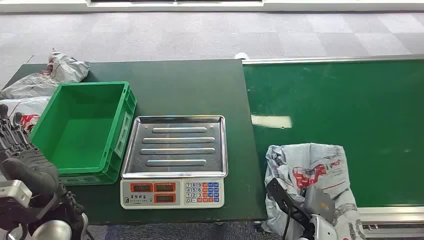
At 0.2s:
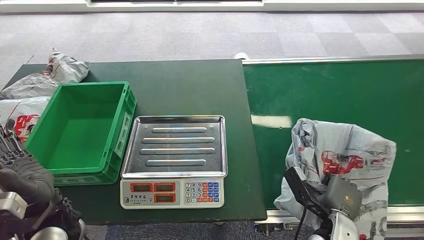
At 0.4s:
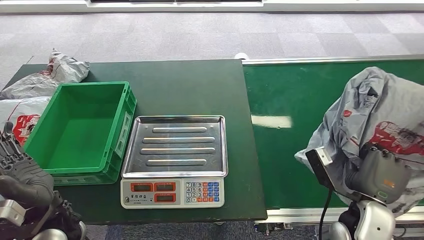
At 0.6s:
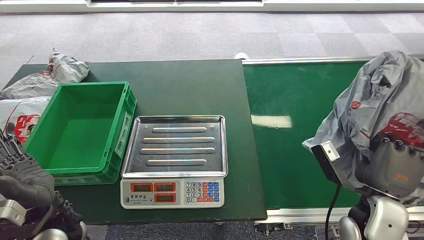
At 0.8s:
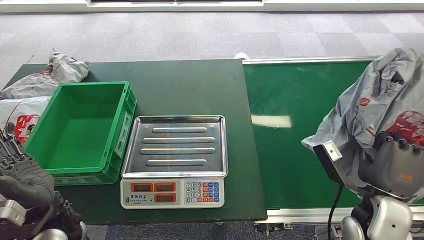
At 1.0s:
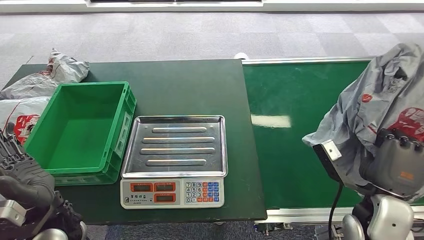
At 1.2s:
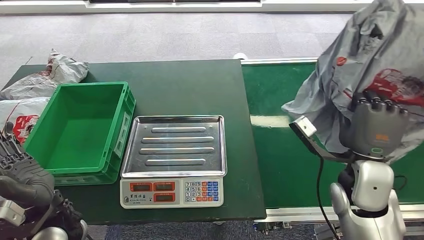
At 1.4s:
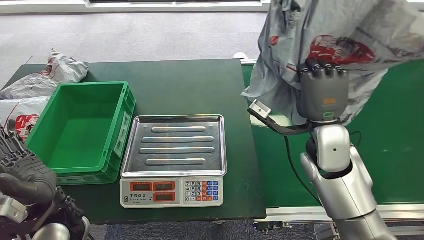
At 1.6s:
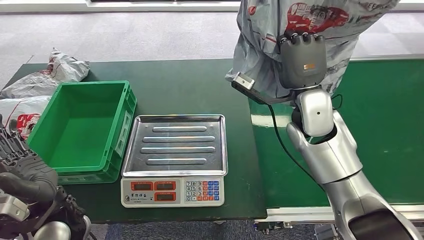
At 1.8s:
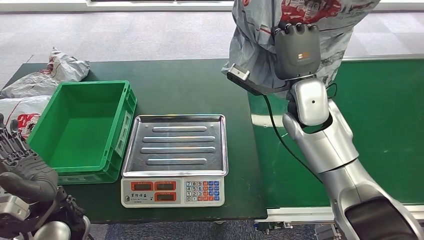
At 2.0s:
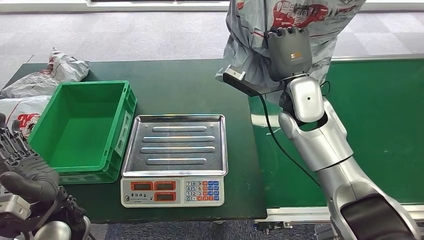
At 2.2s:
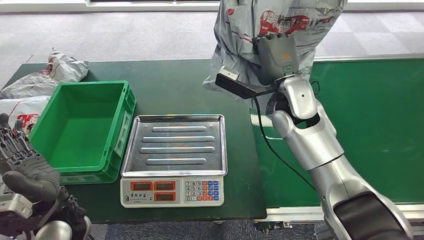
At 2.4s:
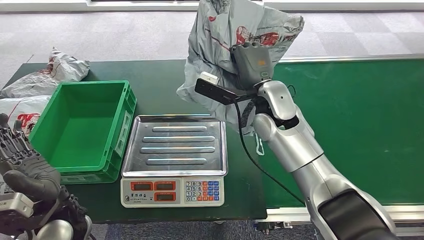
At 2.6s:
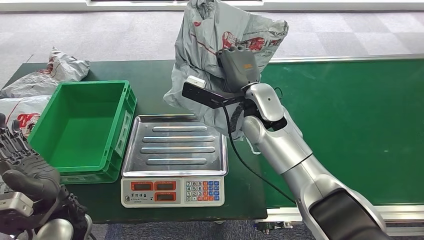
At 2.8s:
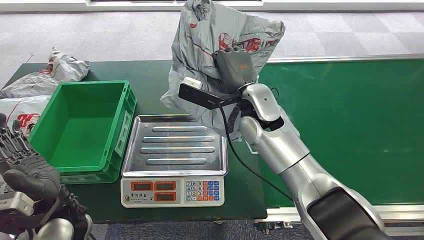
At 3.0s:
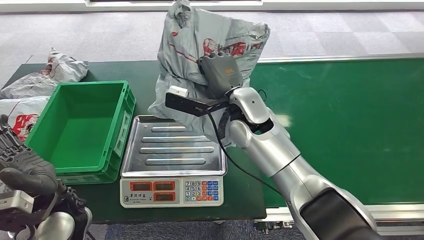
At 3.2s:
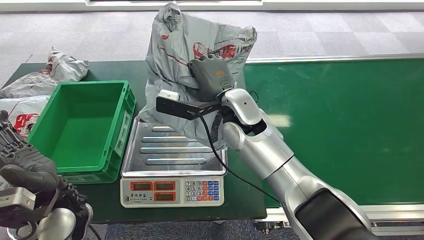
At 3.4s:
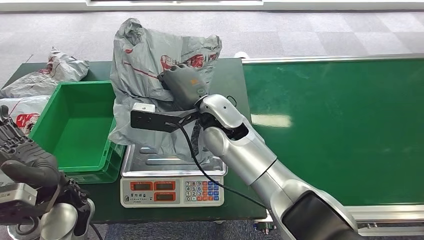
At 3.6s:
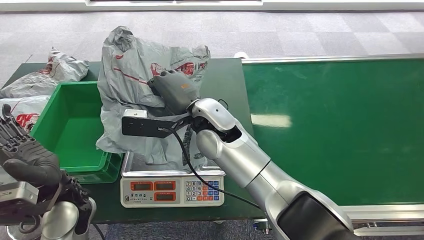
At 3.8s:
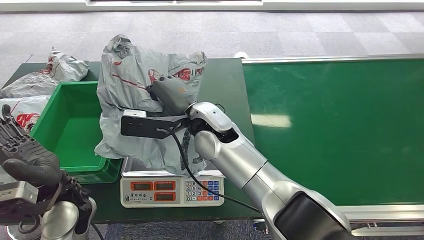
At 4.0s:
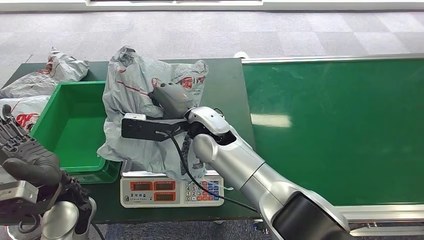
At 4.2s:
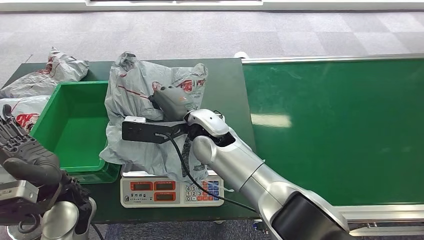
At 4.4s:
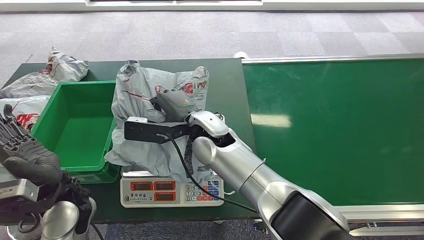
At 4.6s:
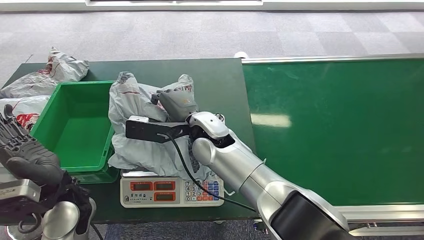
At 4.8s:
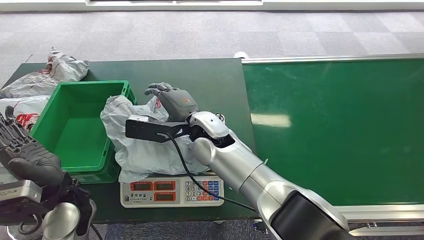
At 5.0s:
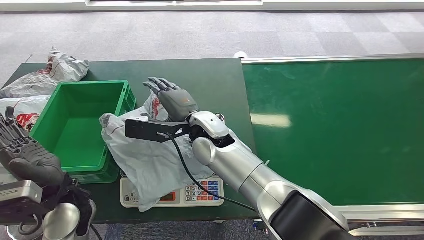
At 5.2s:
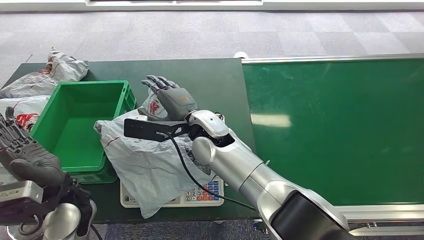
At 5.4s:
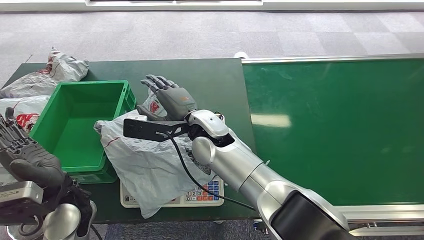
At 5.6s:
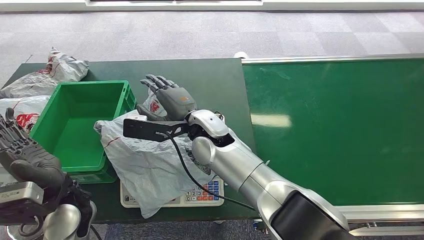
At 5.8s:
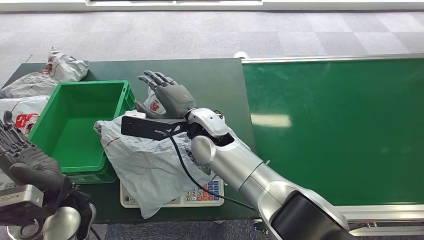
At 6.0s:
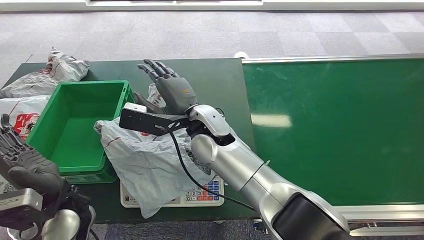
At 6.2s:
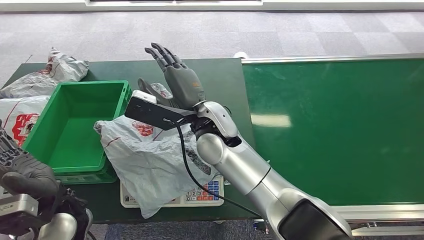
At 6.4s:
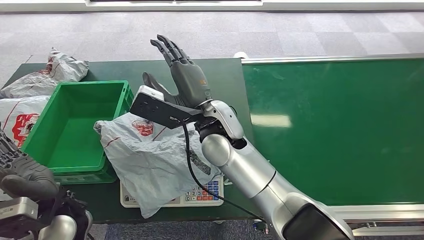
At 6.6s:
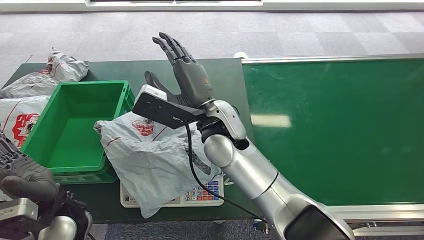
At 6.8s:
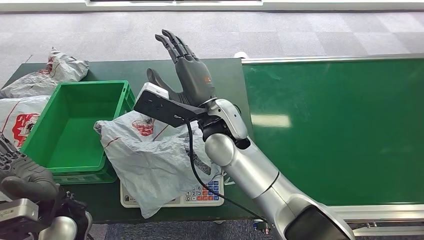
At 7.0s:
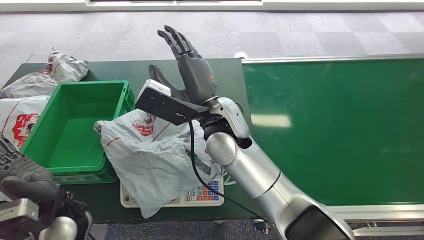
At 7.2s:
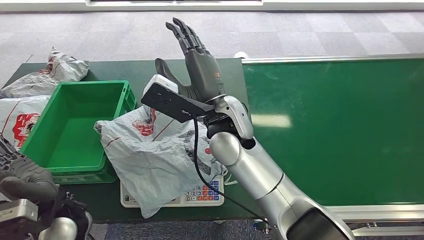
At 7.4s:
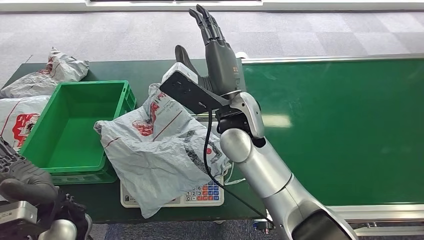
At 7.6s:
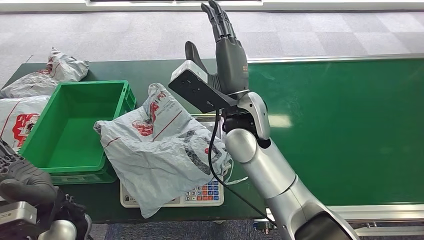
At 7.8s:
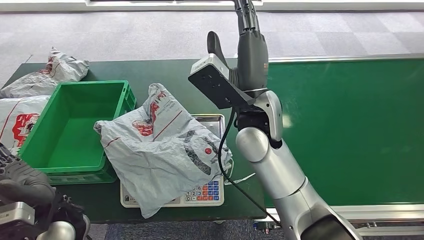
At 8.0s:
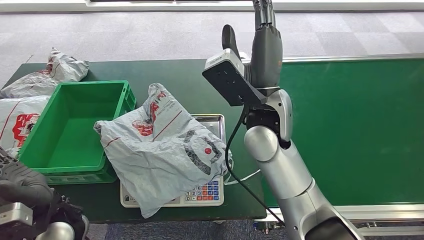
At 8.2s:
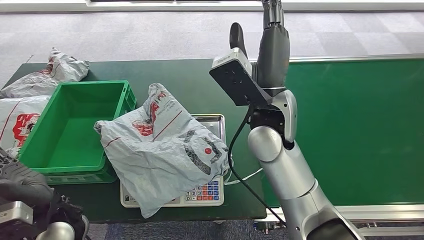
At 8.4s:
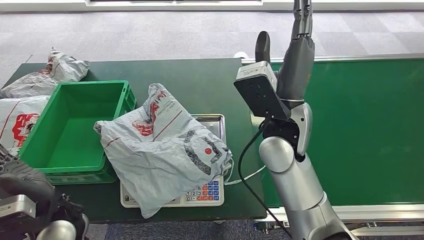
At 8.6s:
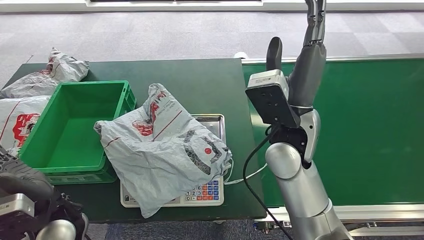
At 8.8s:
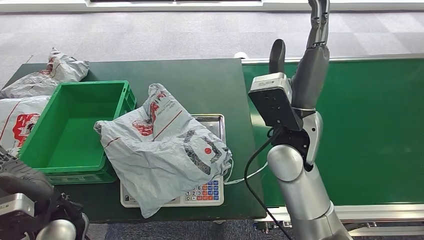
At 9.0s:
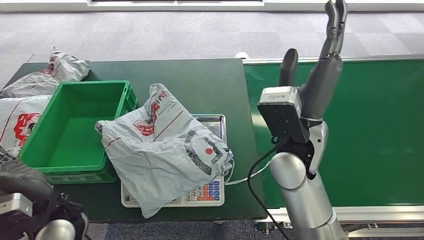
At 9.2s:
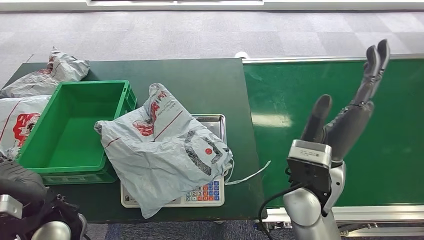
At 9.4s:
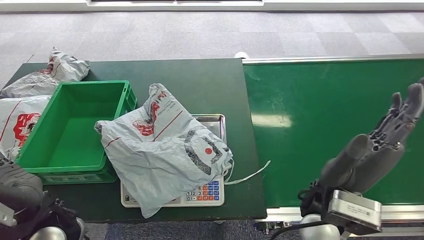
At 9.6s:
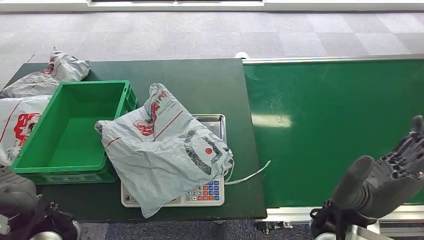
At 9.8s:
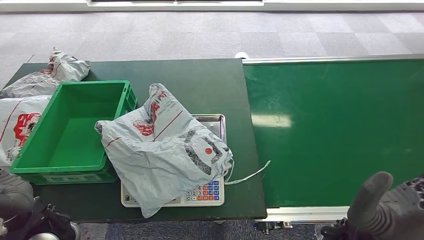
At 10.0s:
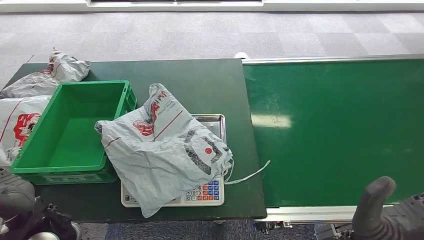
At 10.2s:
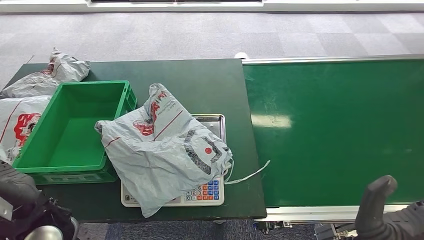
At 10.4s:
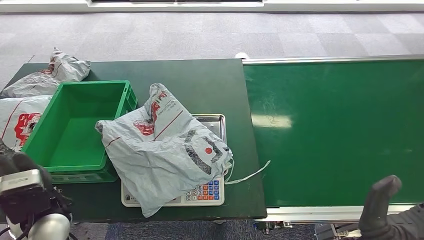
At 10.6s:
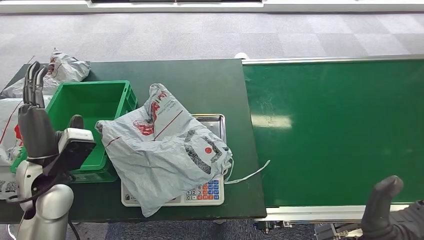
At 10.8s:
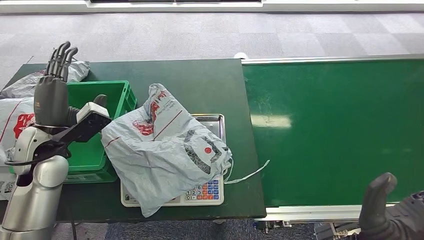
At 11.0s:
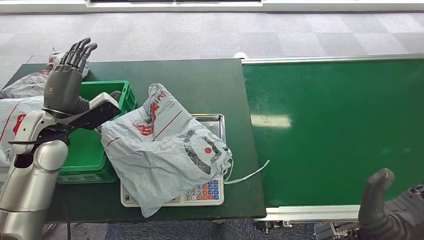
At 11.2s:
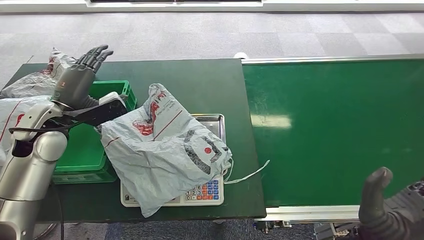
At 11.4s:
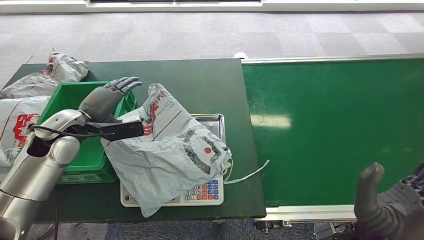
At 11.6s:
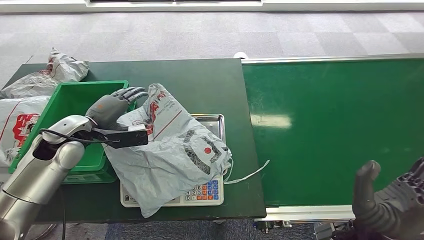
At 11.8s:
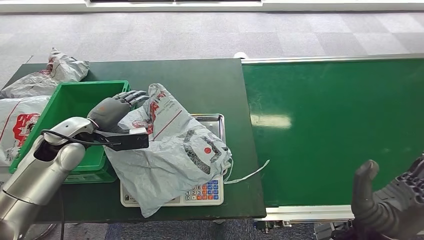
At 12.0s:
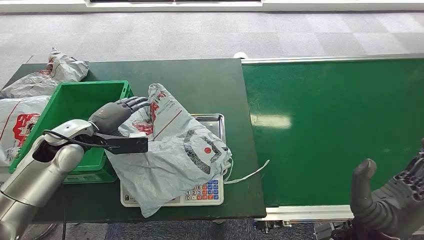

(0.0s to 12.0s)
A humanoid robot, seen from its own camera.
Task of the whole recording: Weigh the package on the weighing device and place it in the left basket.
Step, 0.0s - 0.8s: Pick up the package from the conveyor belt.
Step, 1.0s - 6.0s: Place the package onto the inbound machine.
4.4s - 6.0s: The hands move only a little.
9.0s - 10.4s: The right hand goes roughly 20 cm backward, downward and to the right.
10.4s - 12.0s: The left hand heads forward, covering some 15 cm.

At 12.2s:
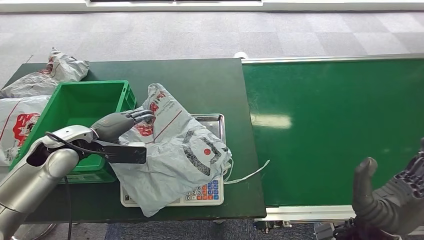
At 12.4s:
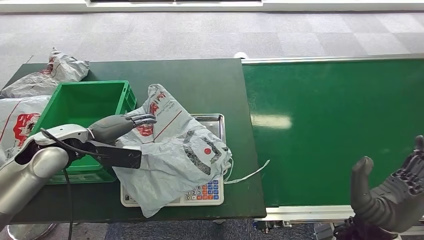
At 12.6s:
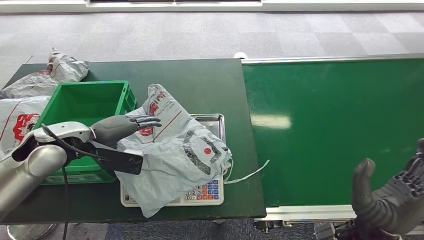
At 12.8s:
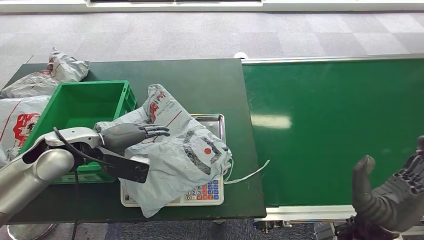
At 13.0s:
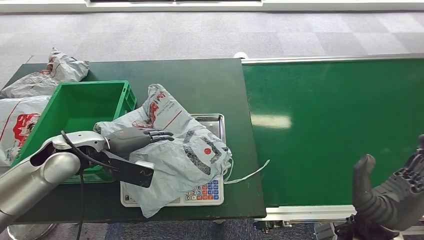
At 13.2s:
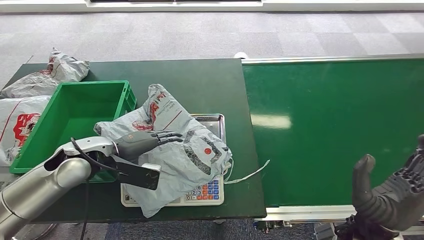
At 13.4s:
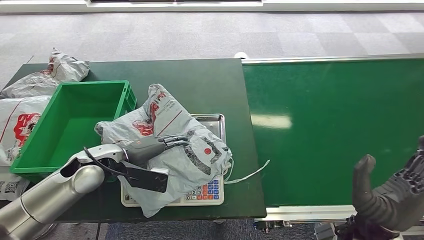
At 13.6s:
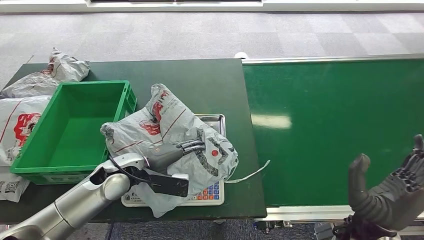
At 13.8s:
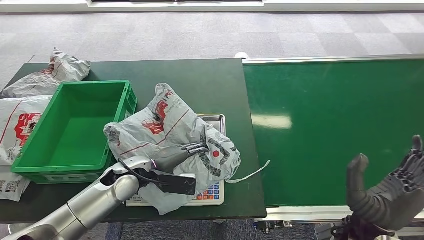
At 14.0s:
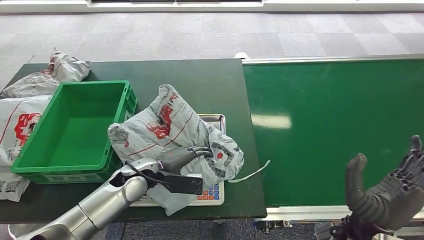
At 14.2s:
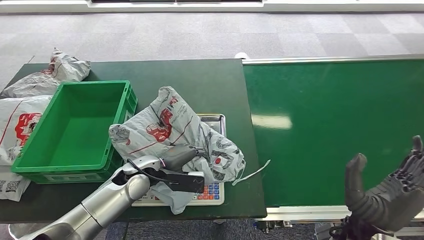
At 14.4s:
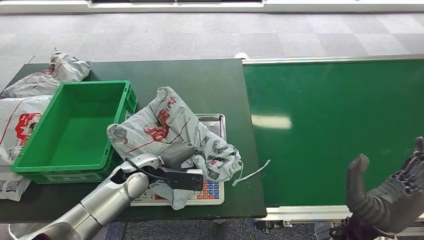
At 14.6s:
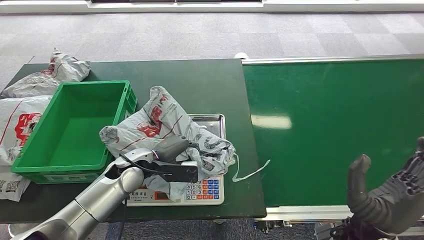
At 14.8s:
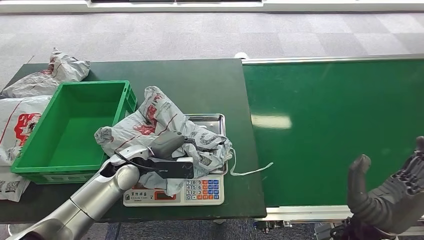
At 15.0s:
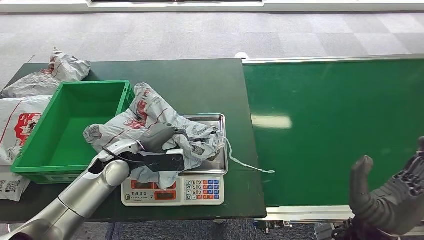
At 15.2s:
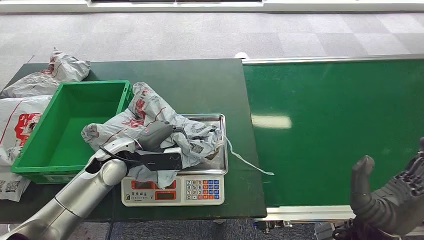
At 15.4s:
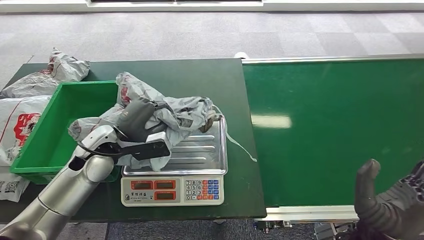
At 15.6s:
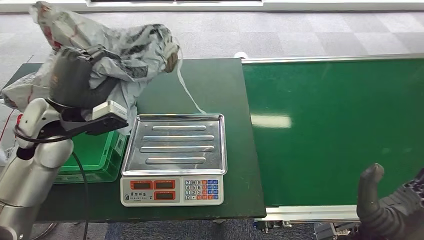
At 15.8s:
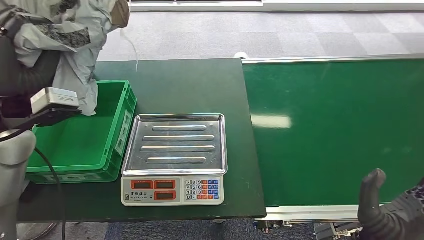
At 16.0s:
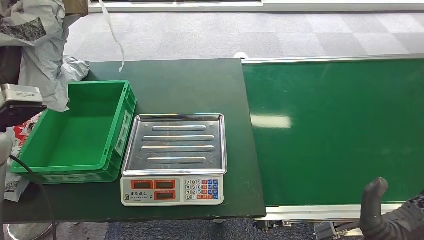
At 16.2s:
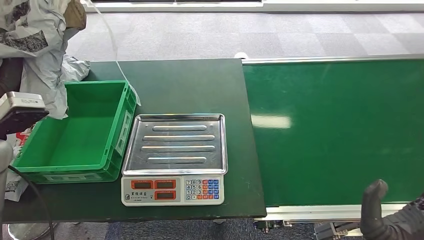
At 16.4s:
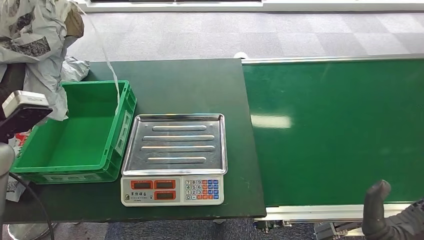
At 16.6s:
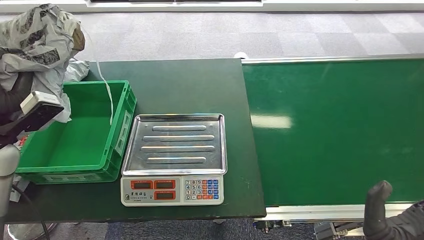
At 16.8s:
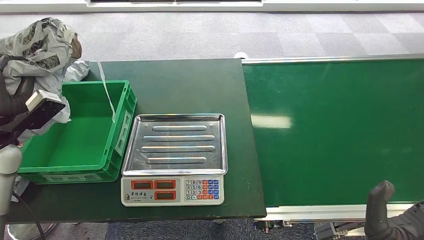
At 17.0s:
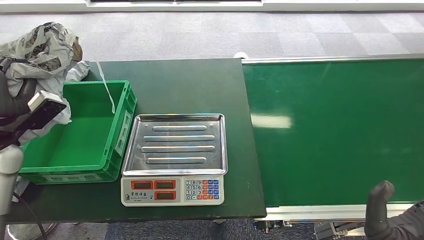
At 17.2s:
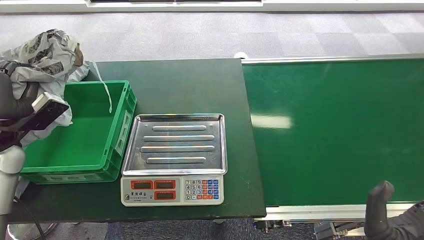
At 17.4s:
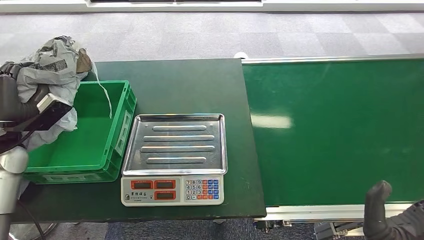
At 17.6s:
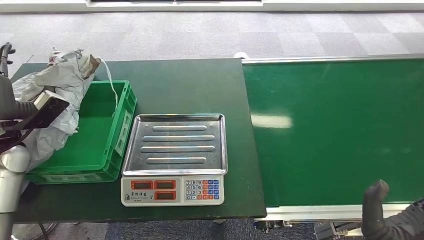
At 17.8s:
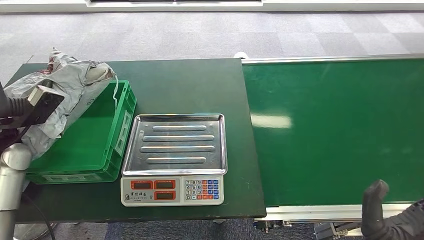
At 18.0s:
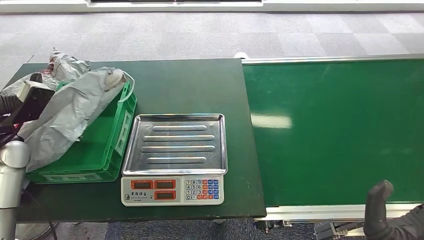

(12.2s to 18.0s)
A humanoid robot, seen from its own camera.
Task of the whole recording: Weigh the package on the weighing device and place it in the left basket.
Step, 12.2s - 16.2s: Pick up the package from the inbound machine.
Step, 16.4s - 18.0s: Place the package into the parcel locker.
12.2s - 13.6s: The left hand moves to the right and downward, some 15 cm.
13.6s - 15.0s: The hands move only a little.
16.6s - 18.0s: The left hand moves approximately 5 cm.
